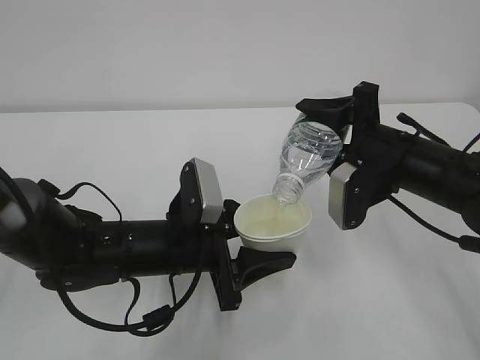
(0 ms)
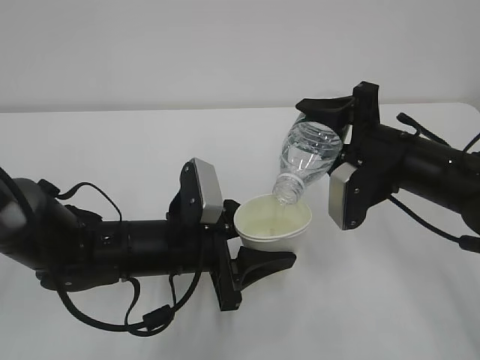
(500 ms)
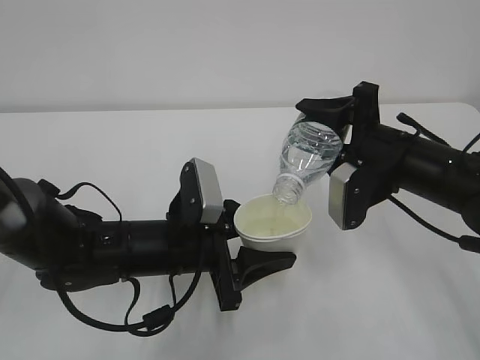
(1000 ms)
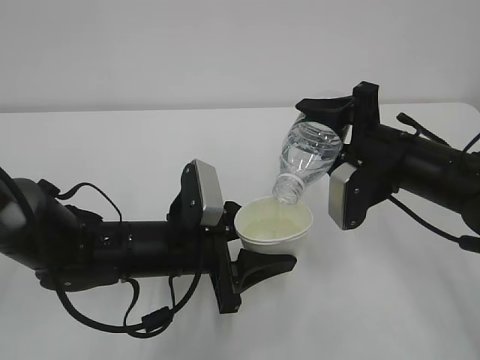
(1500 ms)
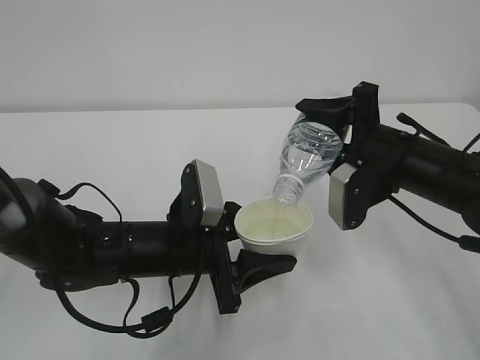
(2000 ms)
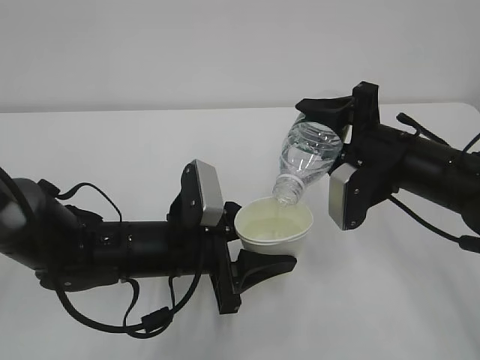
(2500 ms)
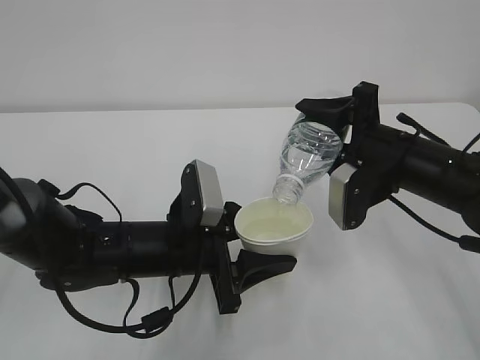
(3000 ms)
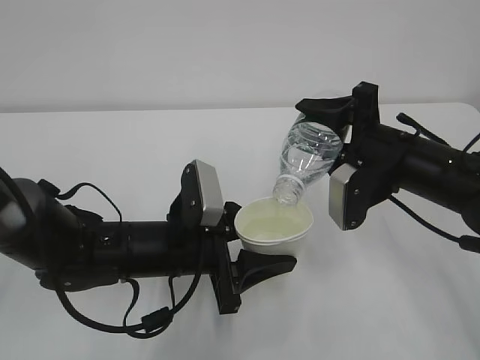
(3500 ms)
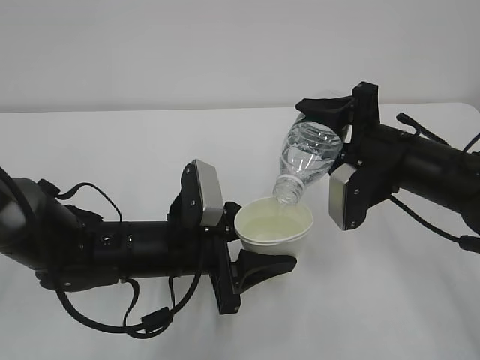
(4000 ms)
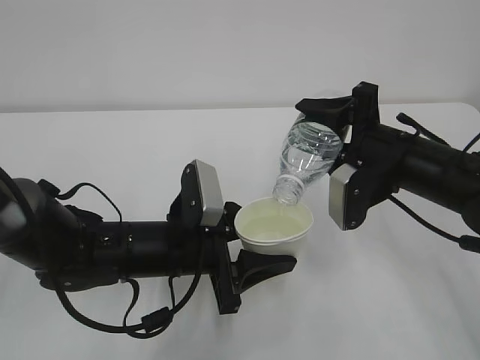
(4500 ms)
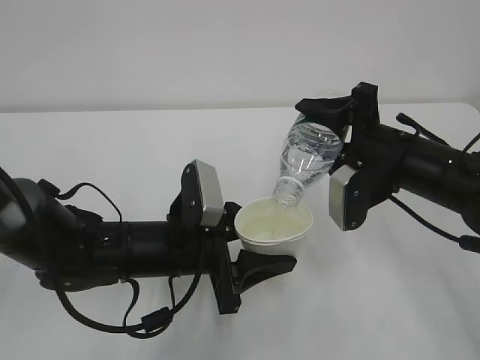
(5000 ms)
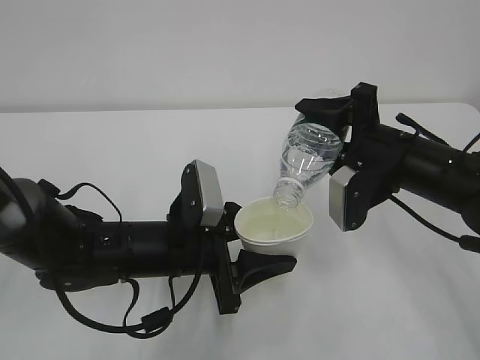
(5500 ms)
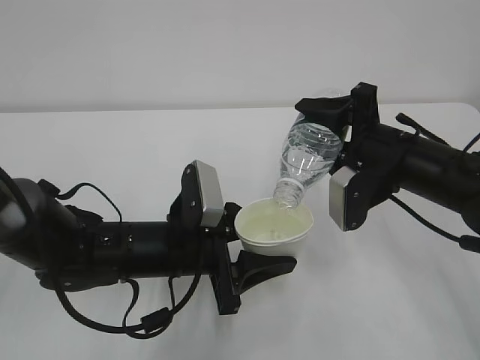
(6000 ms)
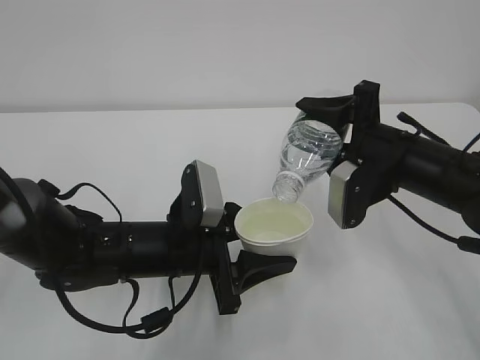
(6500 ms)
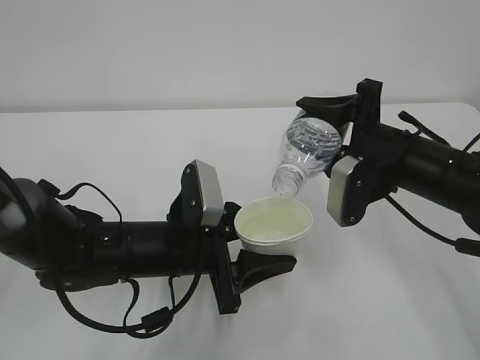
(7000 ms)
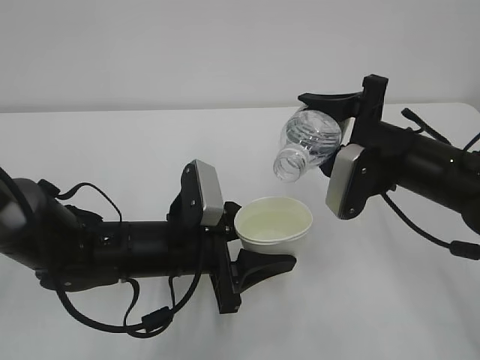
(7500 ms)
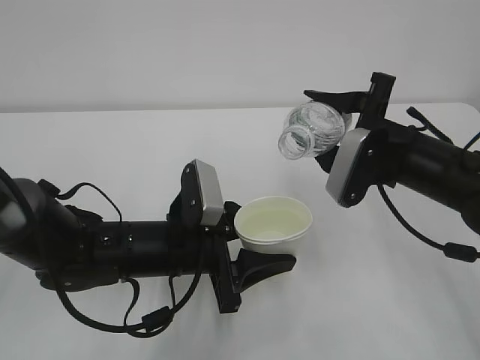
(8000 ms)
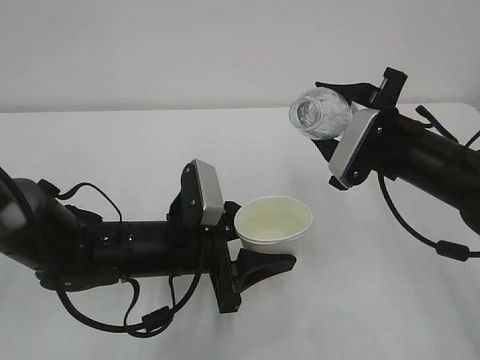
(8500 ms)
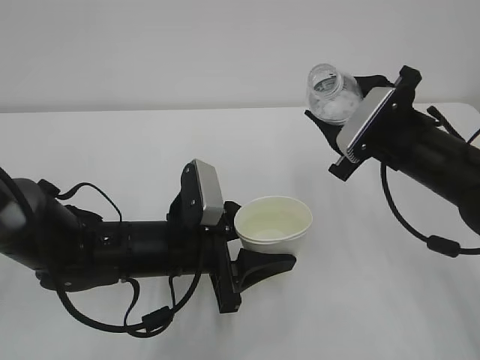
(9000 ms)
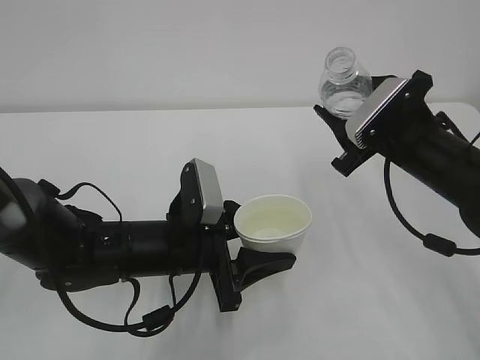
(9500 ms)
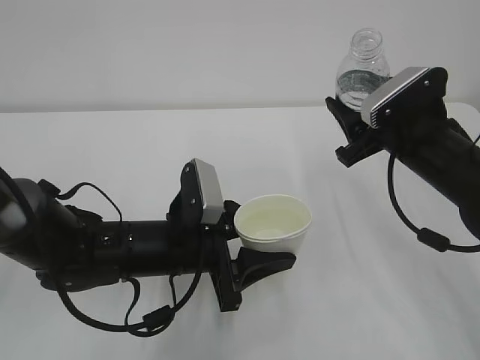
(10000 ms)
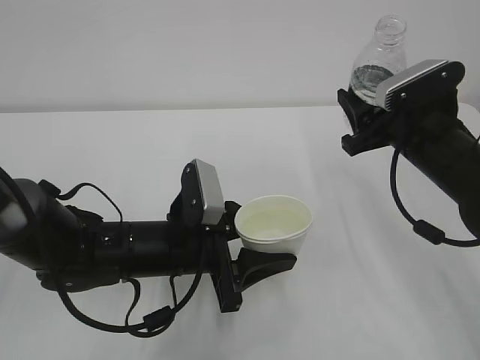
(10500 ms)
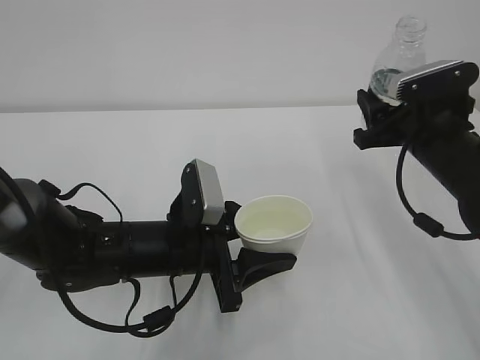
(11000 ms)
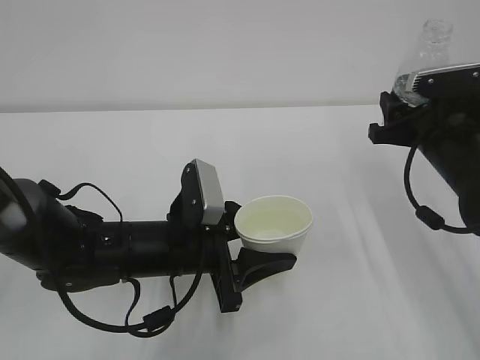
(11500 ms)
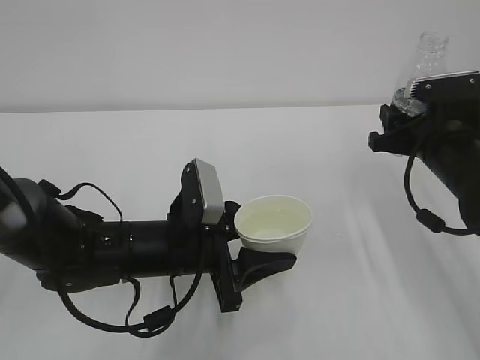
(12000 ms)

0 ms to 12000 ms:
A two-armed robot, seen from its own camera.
0 ms to 6000 ms: Neither gripper changes place.

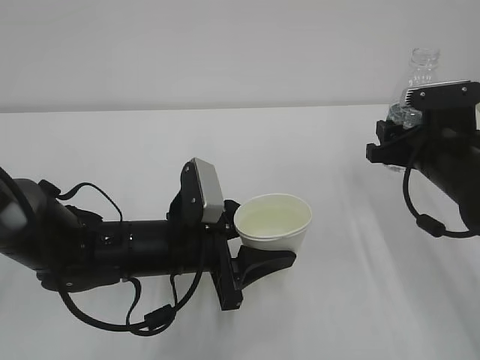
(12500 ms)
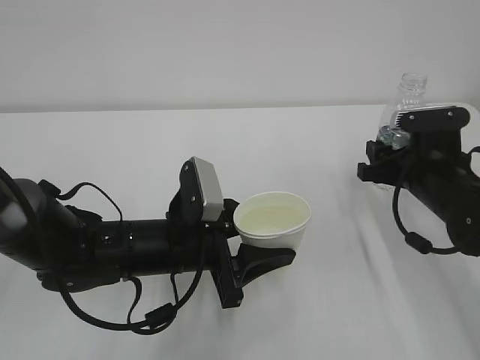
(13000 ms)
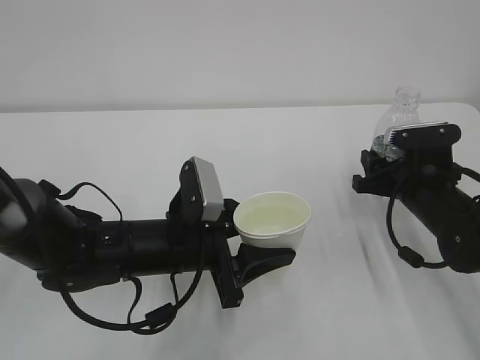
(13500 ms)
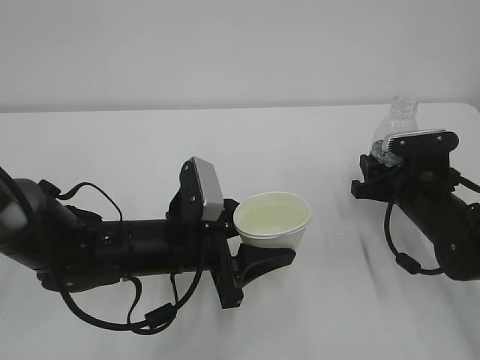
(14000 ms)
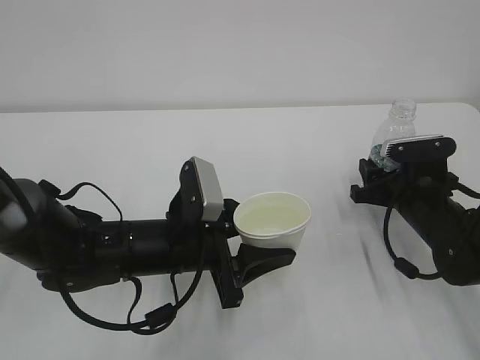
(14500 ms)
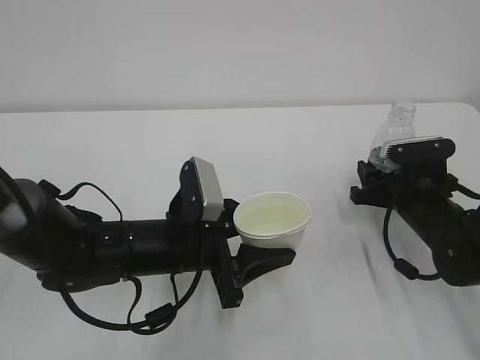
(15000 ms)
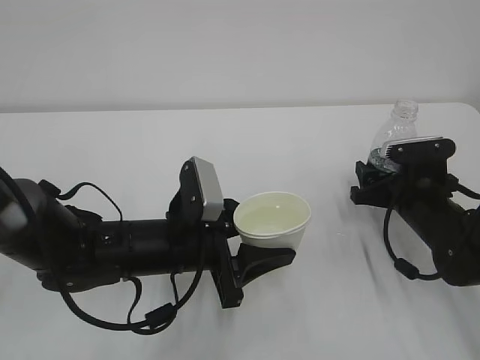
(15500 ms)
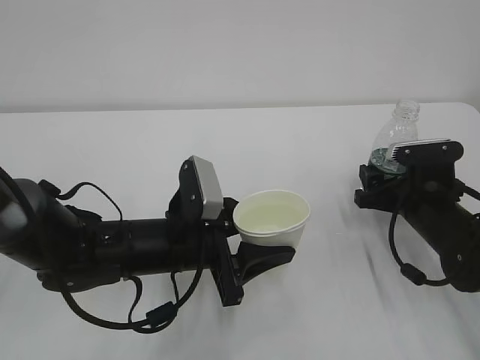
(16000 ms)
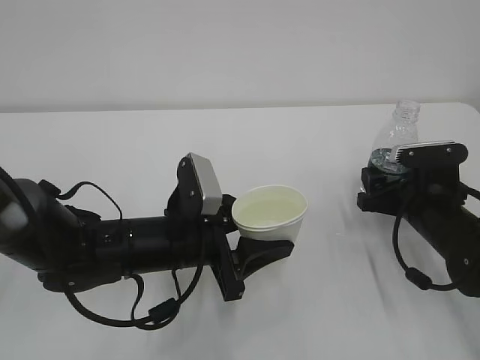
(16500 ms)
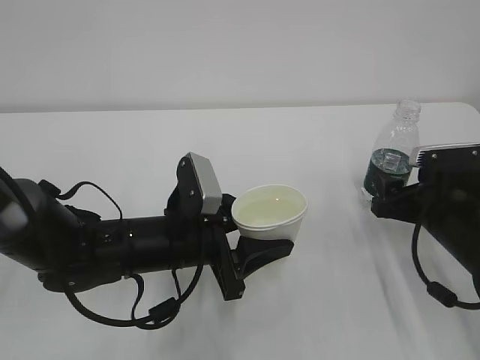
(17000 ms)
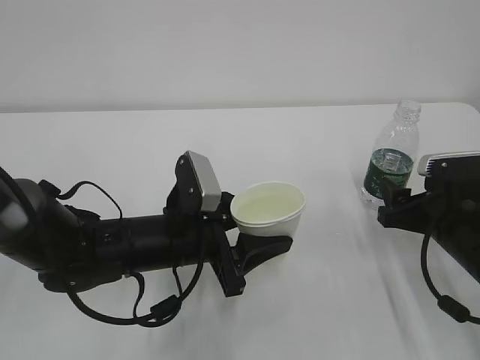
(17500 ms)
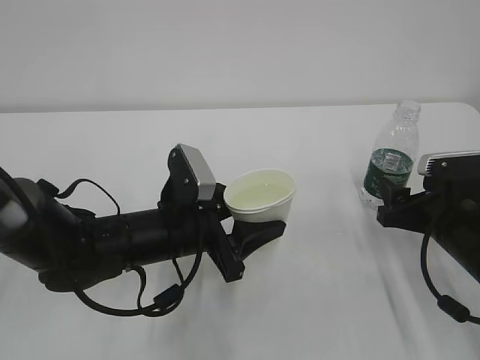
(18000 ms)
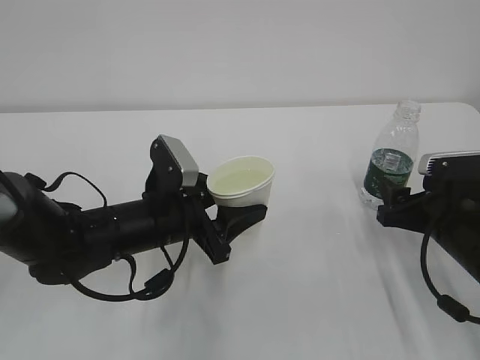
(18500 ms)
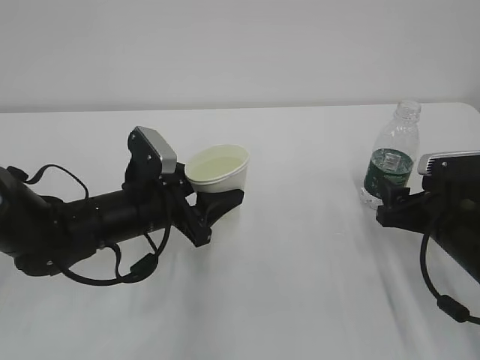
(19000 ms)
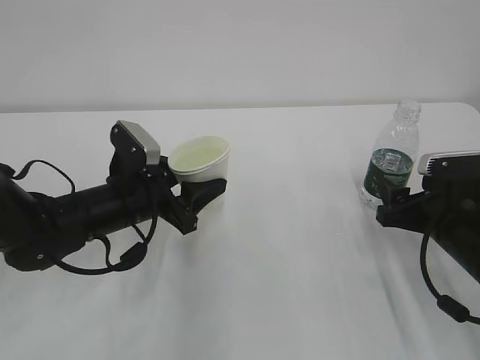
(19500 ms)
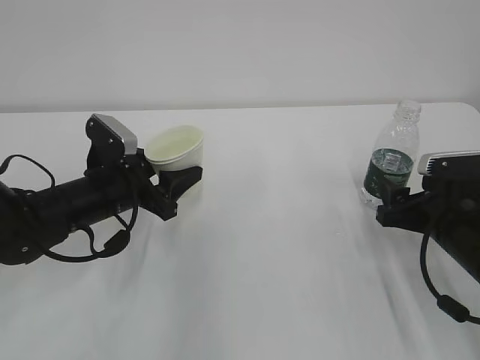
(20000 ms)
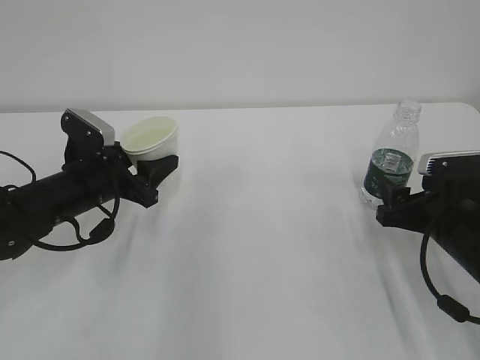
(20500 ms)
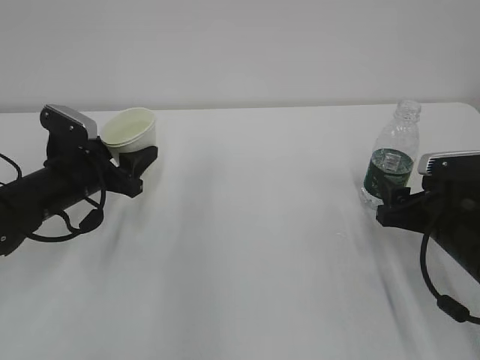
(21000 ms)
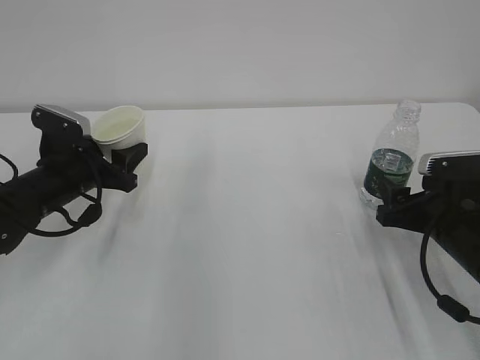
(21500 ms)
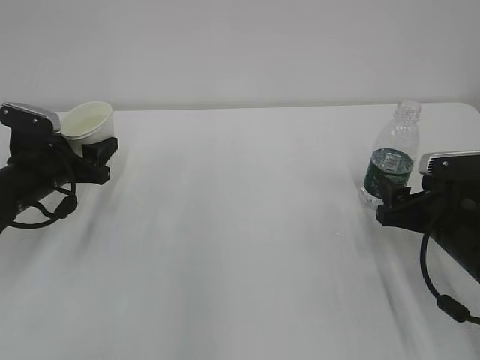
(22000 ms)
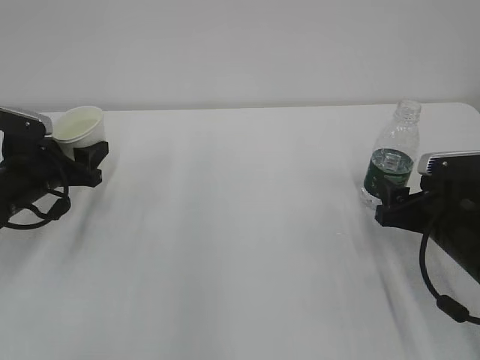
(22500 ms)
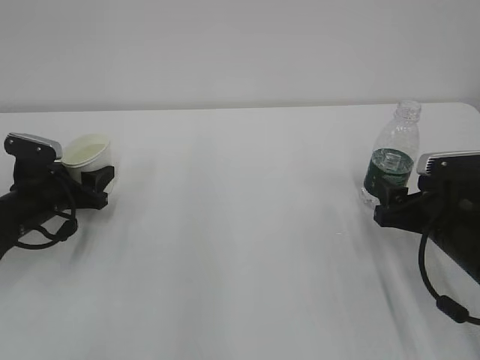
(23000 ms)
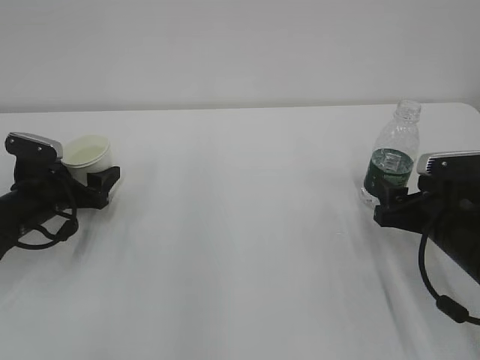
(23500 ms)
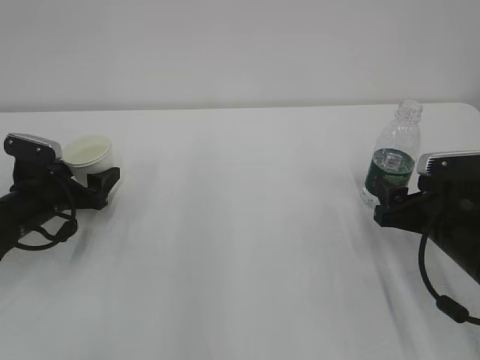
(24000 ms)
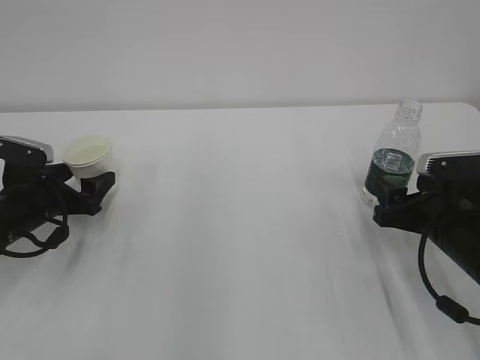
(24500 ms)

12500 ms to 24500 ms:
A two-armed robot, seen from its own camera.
12500 ms to 14500 ms: The right gripper moves downward, some 10 cm.
14500 ms to 16500 ms: The right gripper opens up.
16500 ms to 18500 ms: The right gripper shifts by some 5 cm.
18500 ms to 20500 ms: The left gripper travels to the left and forward by about 10 cm.
20500 ms to 22500 ms: The left gripper travels to the left by some 10 cm.
22500 ms to 24500 ms: The left gripper opens its fingers.

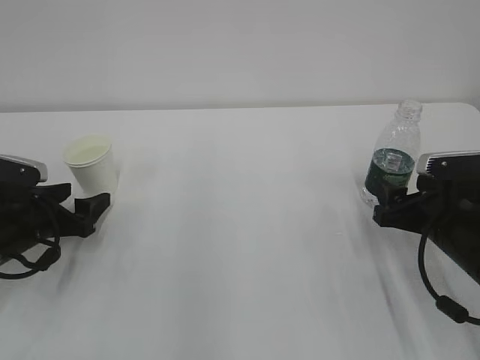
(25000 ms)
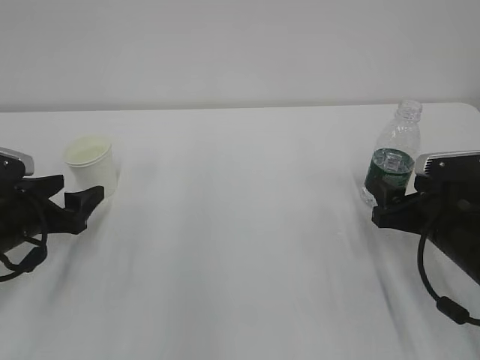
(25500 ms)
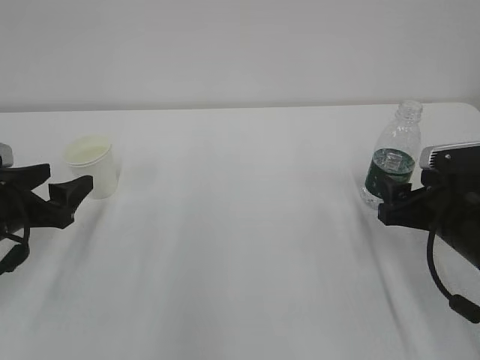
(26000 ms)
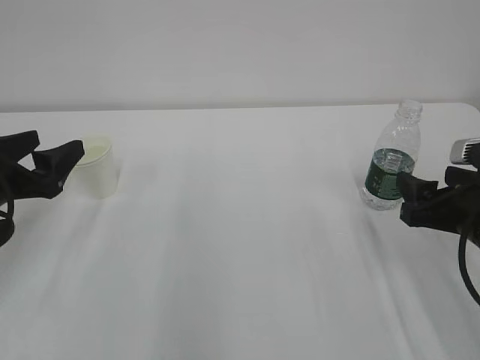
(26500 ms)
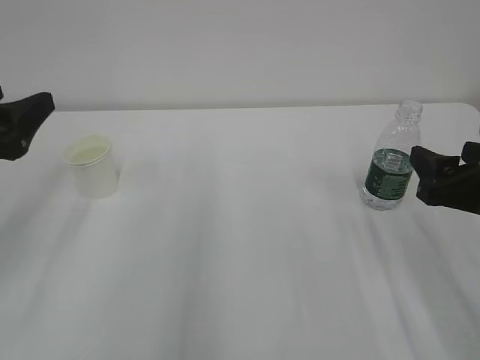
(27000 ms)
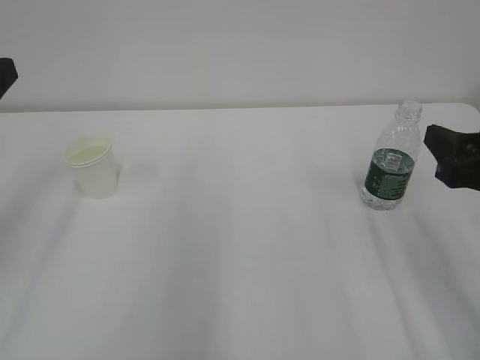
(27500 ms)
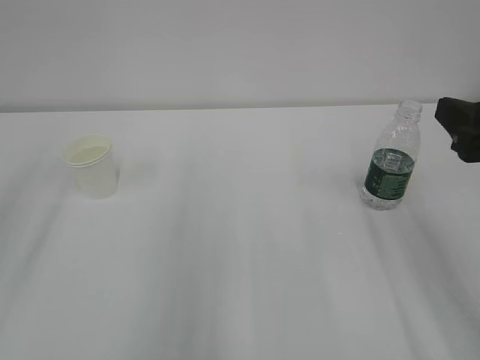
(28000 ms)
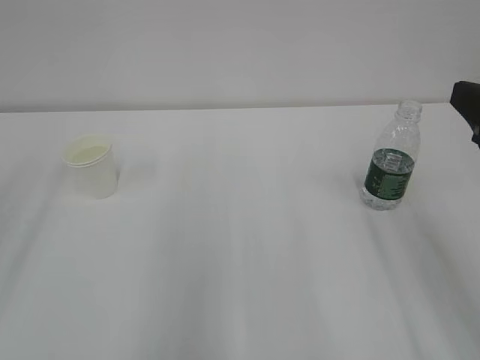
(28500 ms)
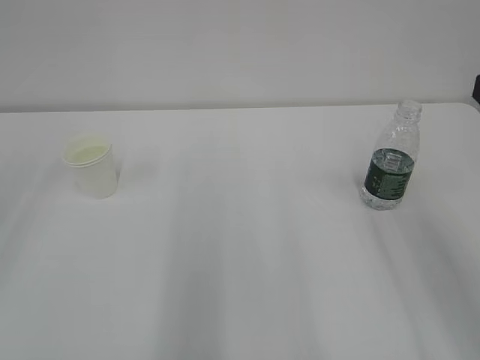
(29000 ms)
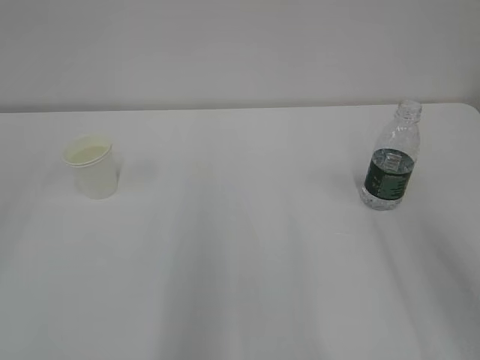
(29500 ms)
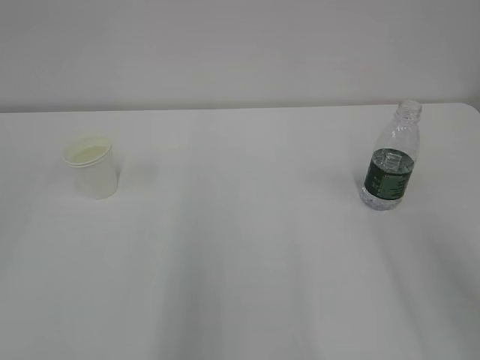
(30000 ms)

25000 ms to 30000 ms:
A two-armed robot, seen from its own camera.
25000 ms to 27500 ms: The right gripper travels upward and backward by some 15 cm. The left gripper goes roughly 25 cm upward and backward.
27500 ms to 30000 ms: The right gripper shifts roughly 10 cm upward and backward.
